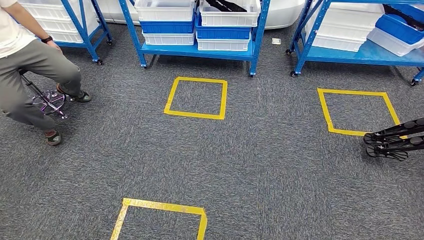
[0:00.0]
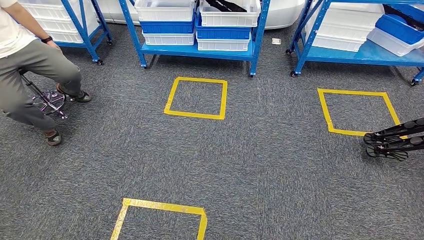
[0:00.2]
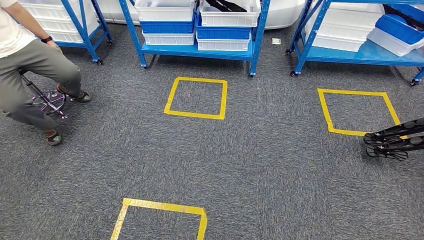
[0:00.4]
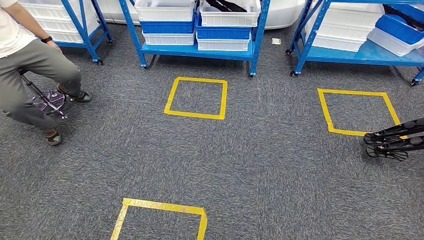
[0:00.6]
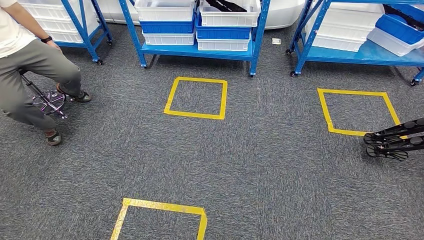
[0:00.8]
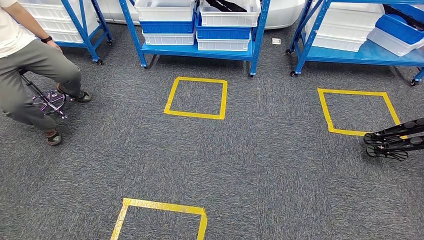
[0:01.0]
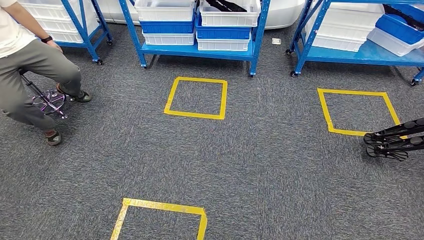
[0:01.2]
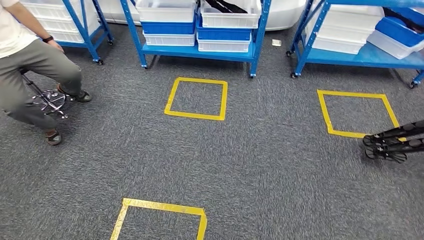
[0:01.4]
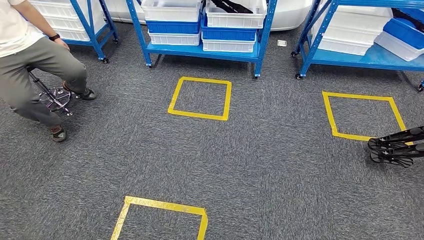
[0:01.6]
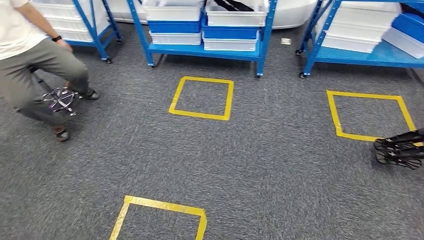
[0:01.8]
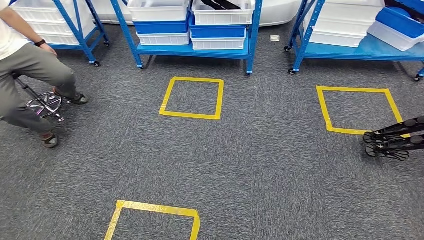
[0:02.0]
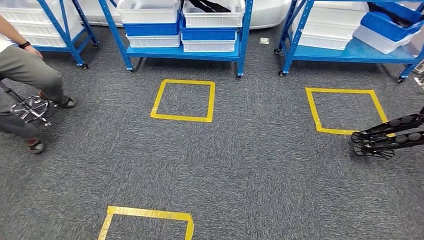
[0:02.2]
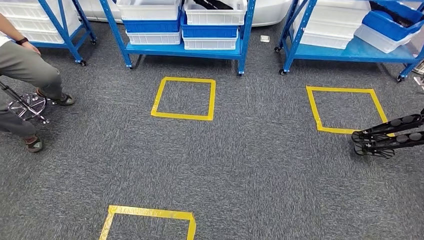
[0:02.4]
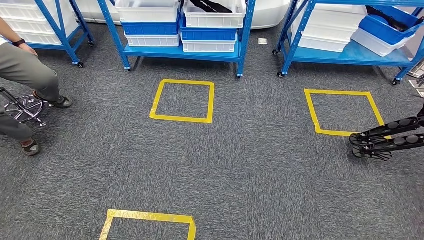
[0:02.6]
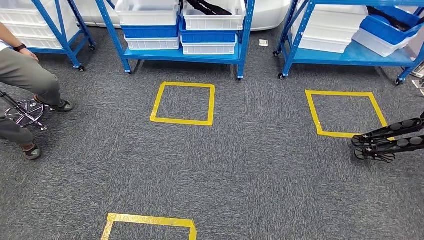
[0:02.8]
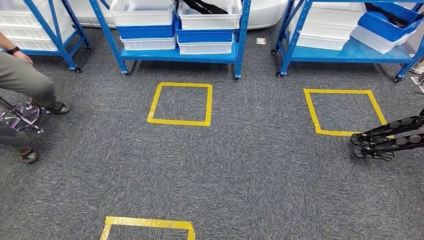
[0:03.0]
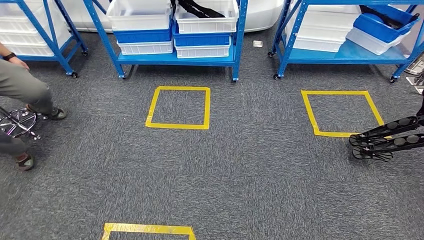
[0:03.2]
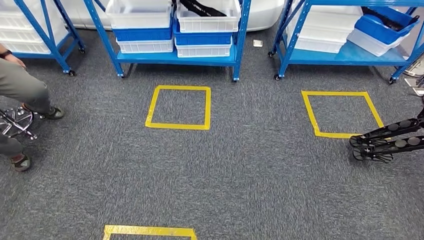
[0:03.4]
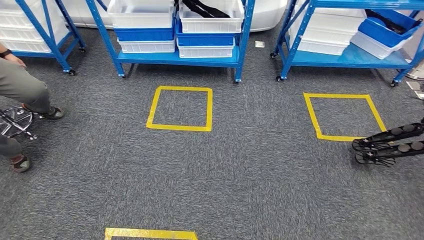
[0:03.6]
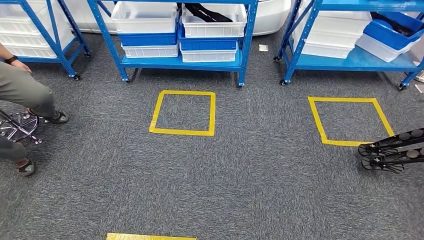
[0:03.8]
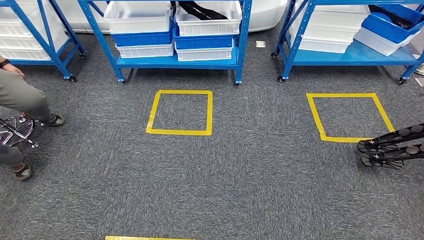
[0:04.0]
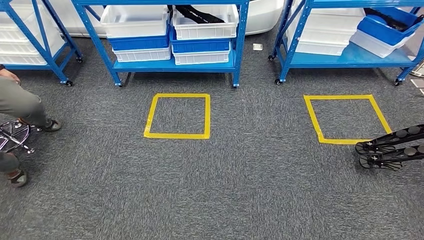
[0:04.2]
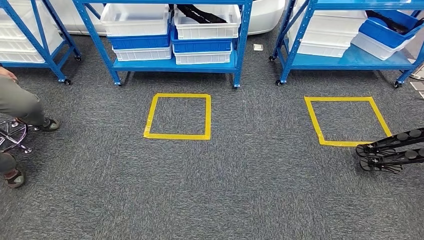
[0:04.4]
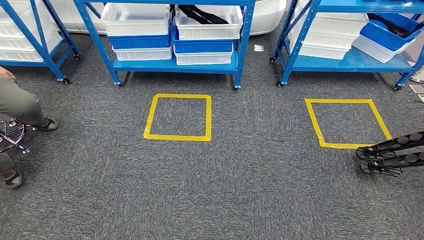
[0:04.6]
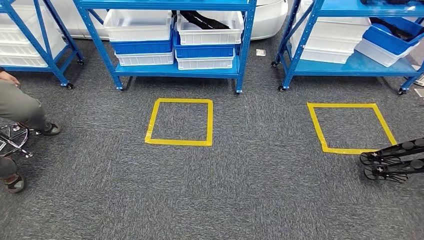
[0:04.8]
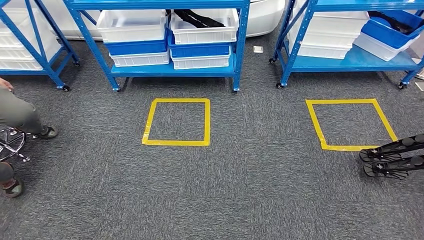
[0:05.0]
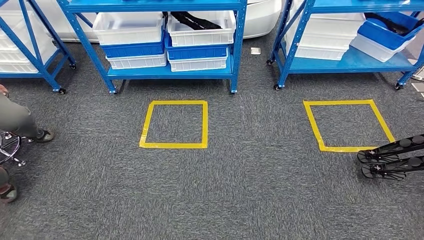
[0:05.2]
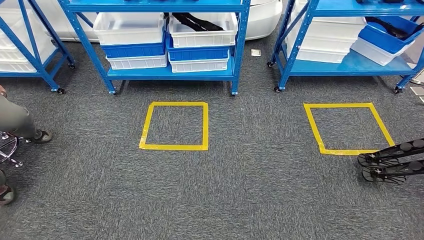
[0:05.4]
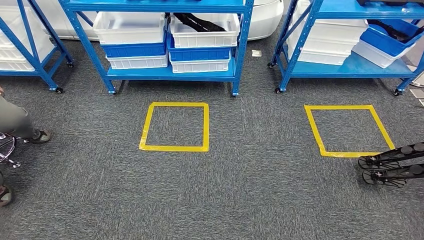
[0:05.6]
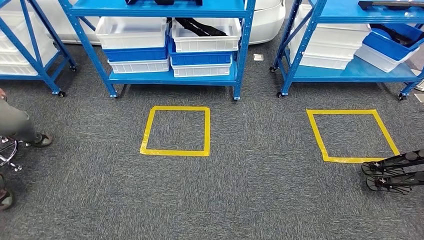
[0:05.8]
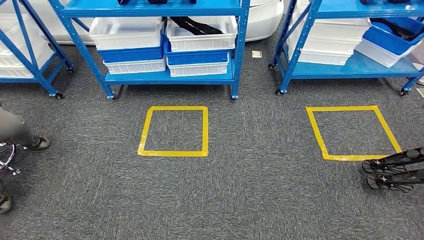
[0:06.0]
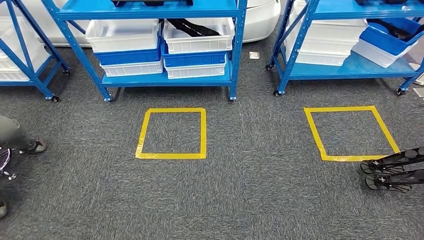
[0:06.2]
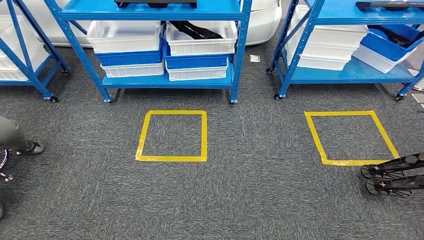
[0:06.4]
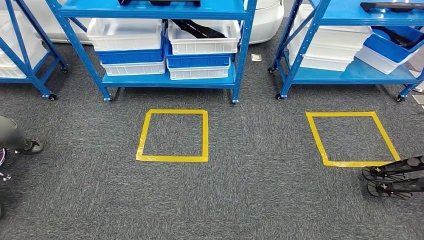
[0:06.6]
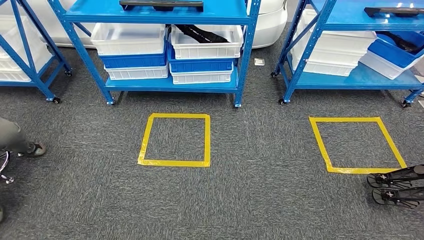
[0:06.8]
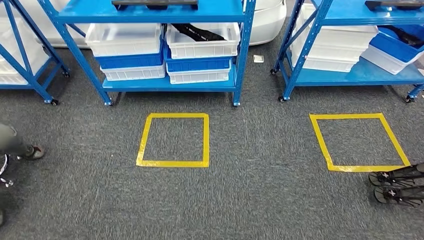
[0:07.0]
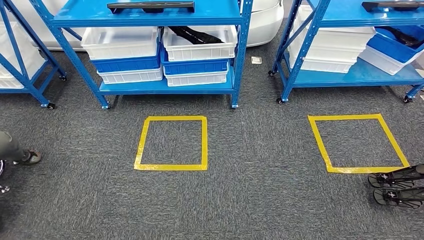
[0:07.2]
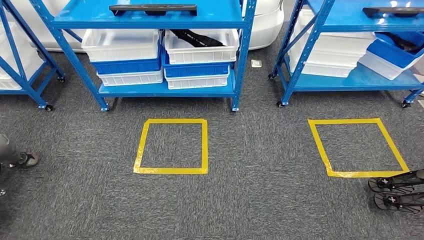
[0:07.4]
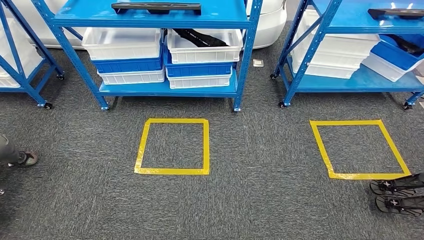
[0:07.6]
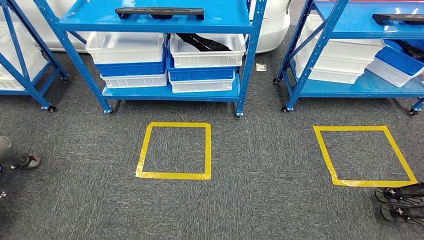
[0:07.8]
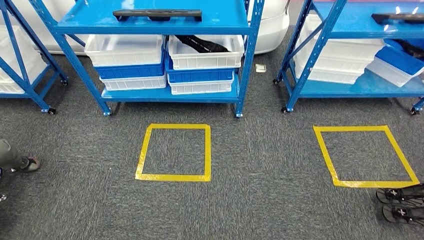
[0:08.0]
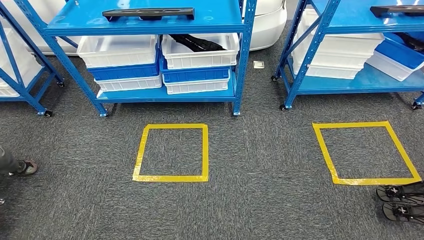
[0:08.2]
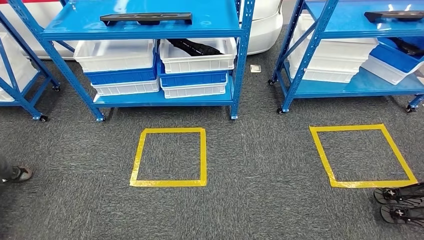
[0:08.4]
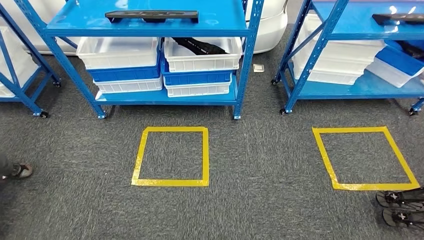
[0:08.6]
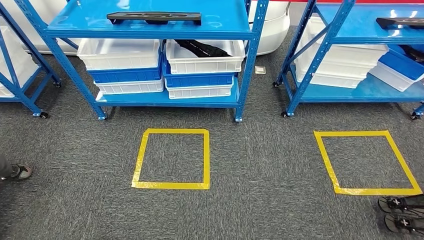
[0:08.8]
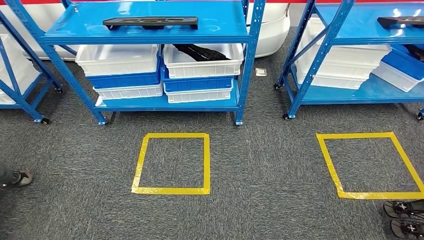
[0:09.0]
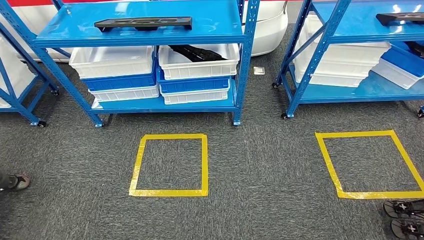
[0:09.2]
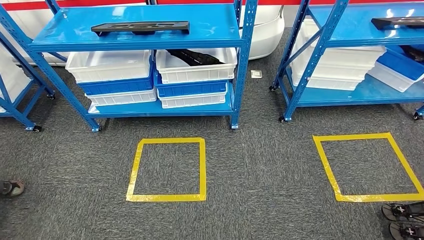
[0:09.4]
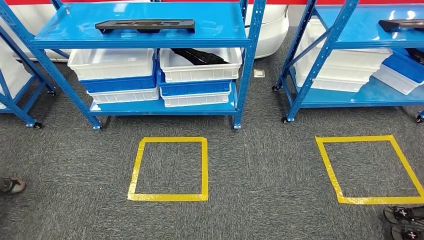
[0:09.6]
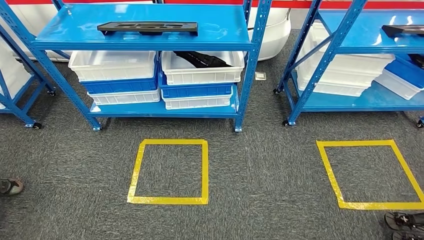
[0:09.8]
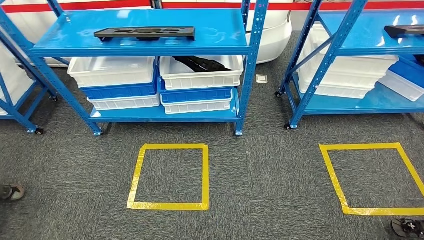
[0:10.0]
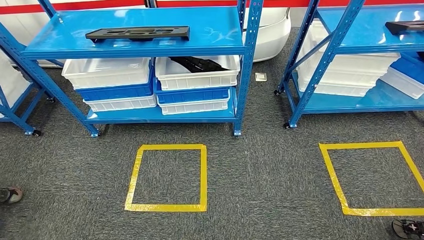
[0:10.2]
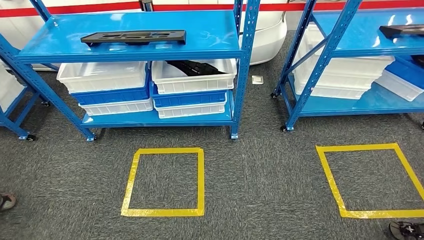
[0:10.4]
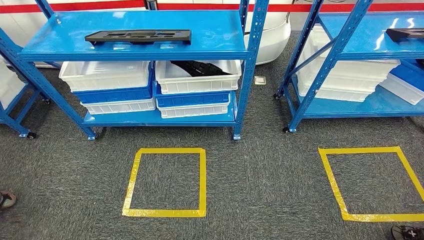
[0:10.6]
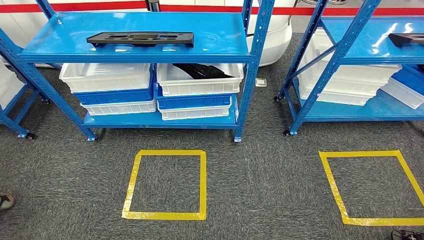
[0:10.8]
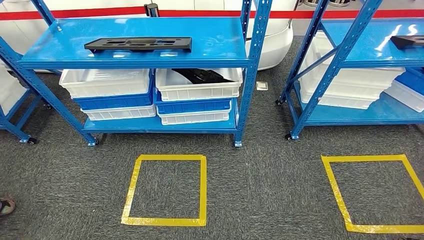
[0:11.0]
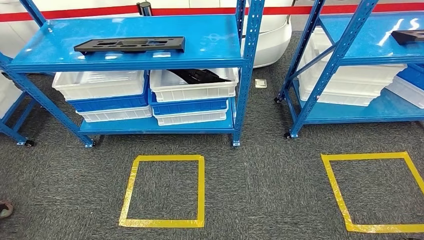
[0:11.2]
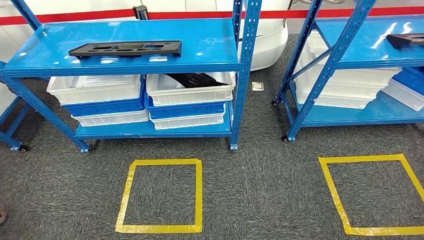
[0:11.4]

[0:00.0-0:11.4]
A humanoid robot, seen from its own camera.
0:00.0 to 0:01.4: Both hands stay put.

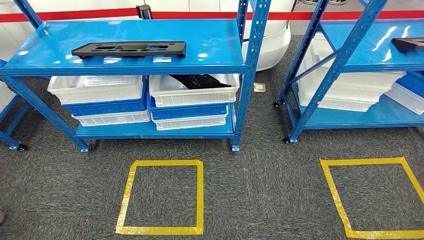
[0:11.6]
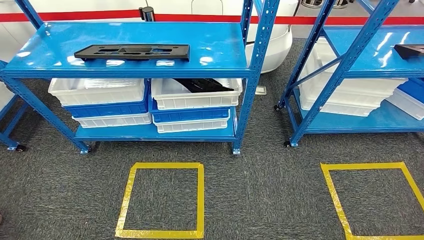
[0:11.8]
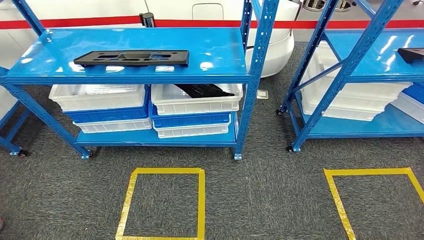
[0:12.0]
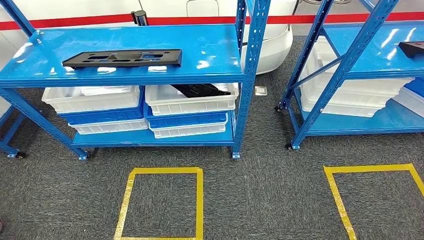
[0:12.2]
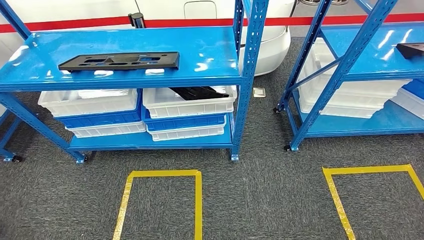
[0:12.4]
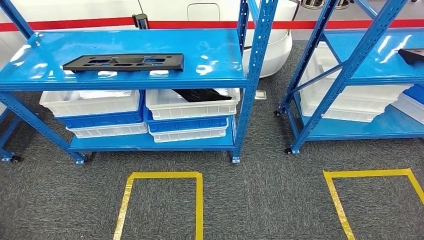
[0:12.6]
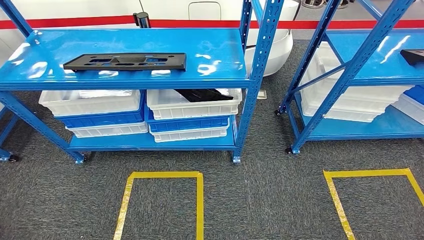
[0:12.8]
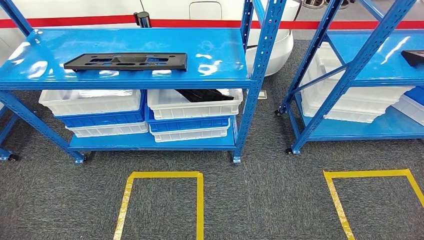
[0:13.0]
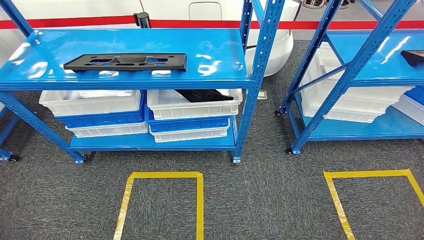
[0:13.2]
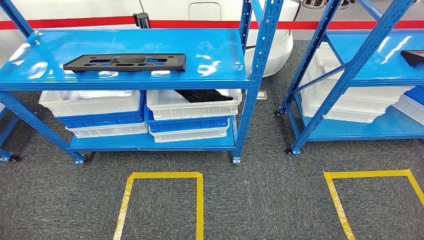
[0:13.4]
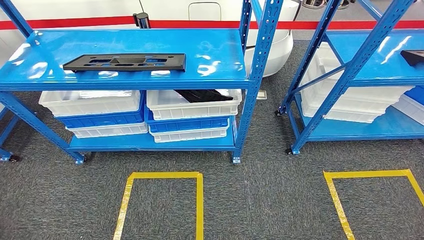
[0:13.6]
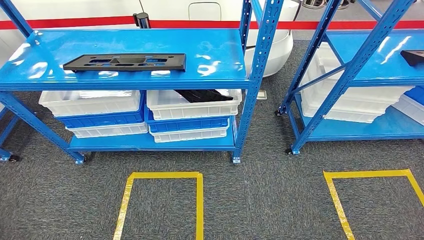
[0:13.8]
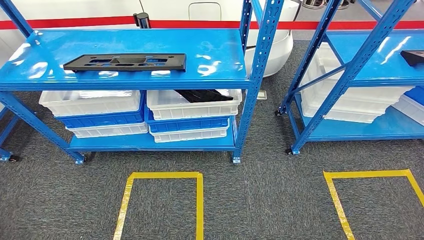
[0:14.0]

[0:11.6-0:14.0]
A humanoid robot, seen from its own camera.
Step, 0:11.6 to 0:14.0: Move to the initial position of the shelf.
0:12.8 to 0:14.0: The two hands keep their place.
